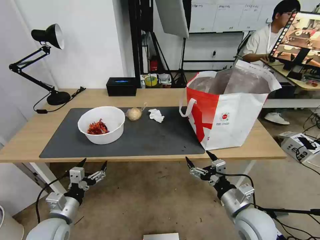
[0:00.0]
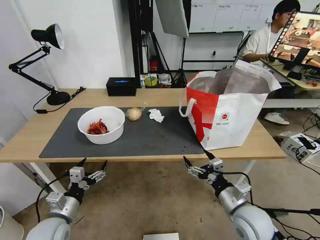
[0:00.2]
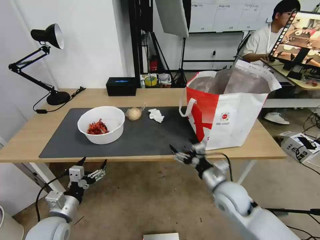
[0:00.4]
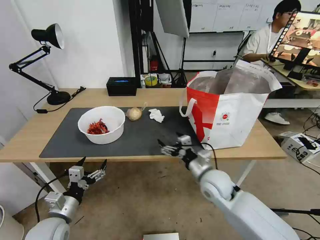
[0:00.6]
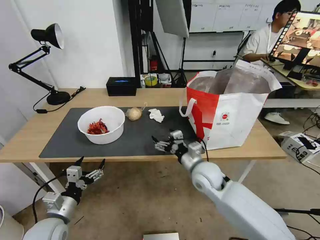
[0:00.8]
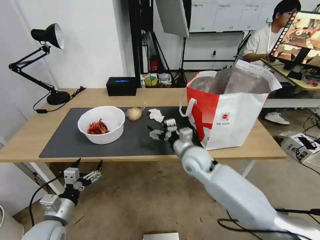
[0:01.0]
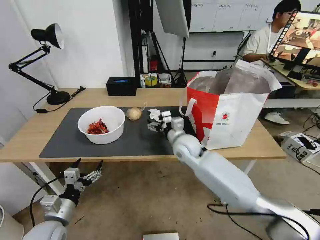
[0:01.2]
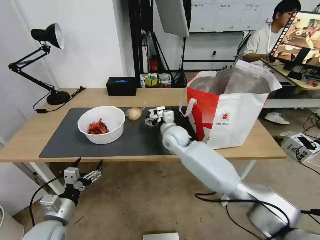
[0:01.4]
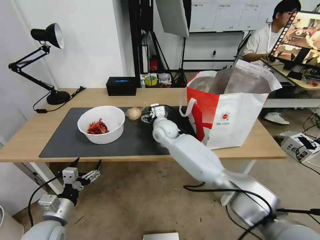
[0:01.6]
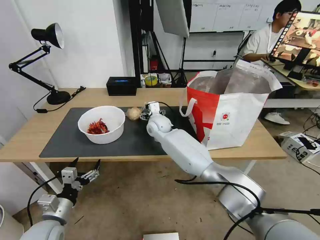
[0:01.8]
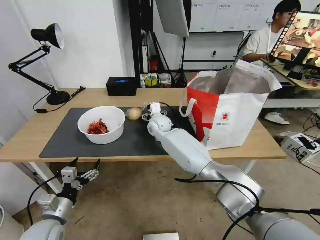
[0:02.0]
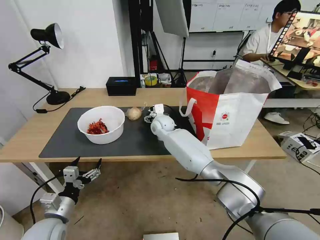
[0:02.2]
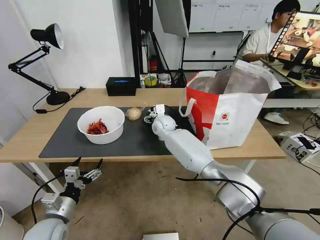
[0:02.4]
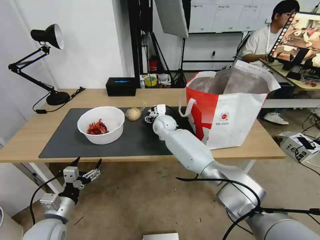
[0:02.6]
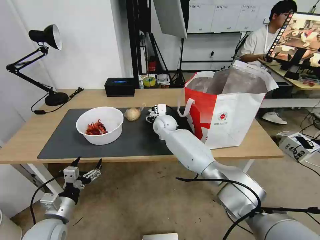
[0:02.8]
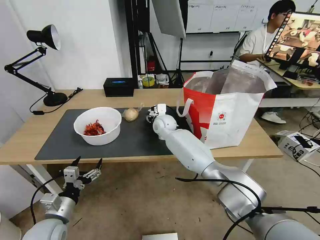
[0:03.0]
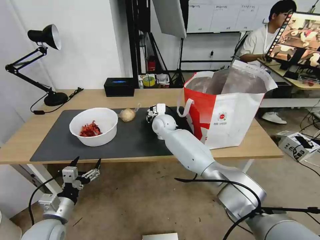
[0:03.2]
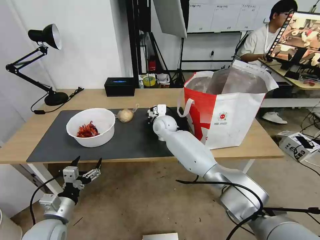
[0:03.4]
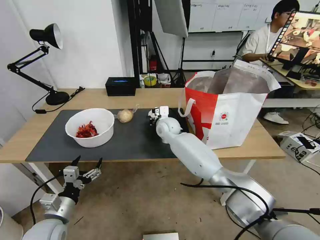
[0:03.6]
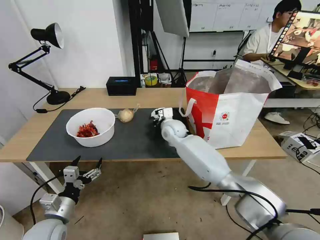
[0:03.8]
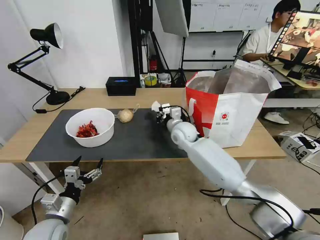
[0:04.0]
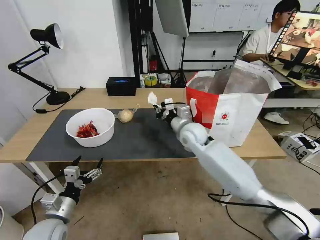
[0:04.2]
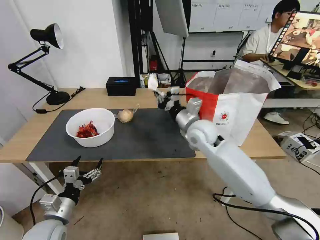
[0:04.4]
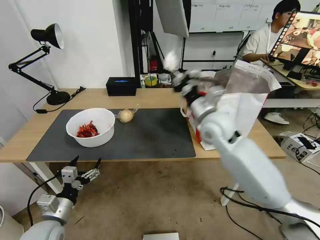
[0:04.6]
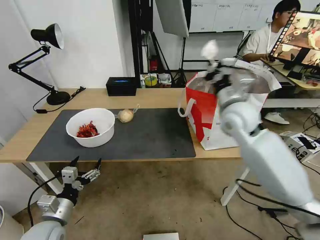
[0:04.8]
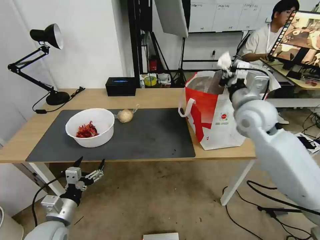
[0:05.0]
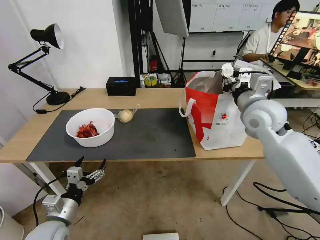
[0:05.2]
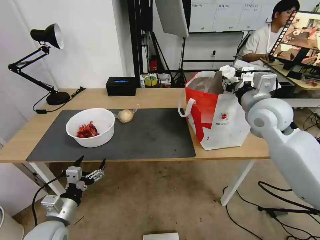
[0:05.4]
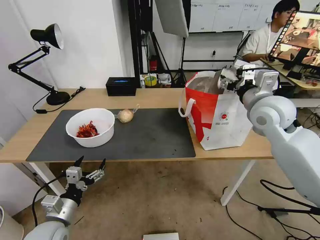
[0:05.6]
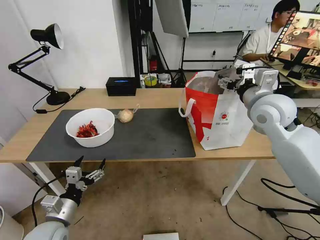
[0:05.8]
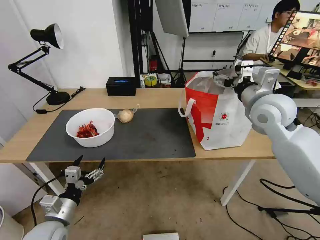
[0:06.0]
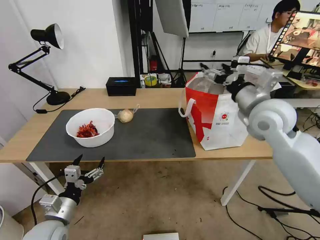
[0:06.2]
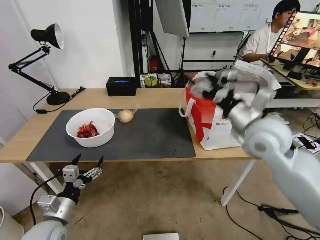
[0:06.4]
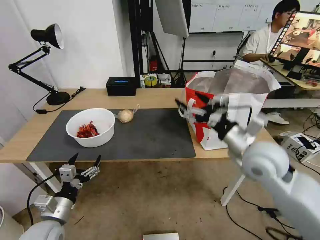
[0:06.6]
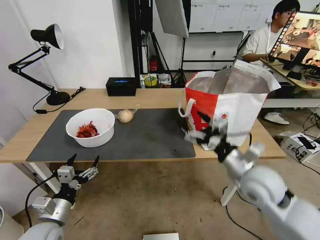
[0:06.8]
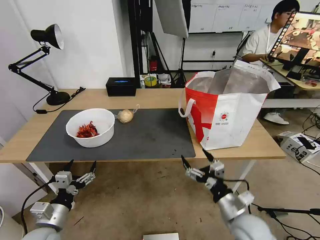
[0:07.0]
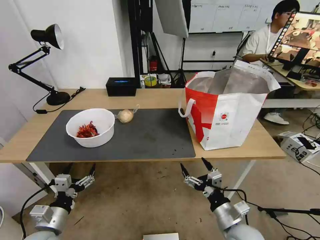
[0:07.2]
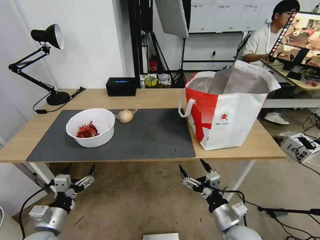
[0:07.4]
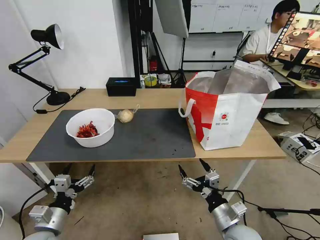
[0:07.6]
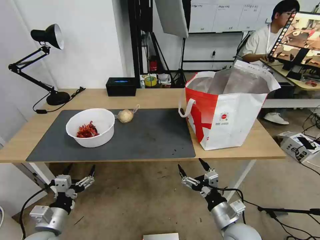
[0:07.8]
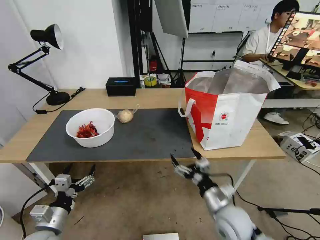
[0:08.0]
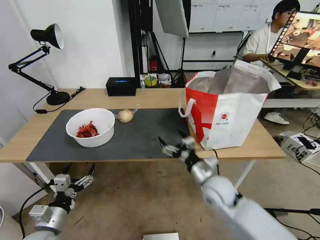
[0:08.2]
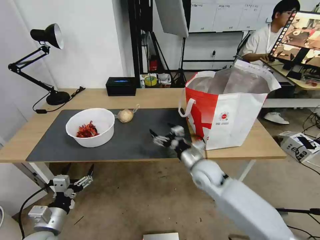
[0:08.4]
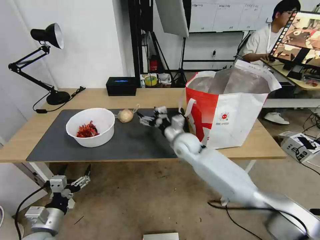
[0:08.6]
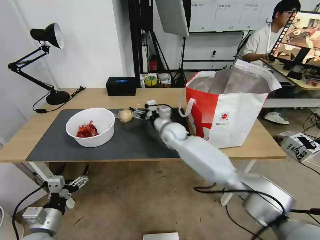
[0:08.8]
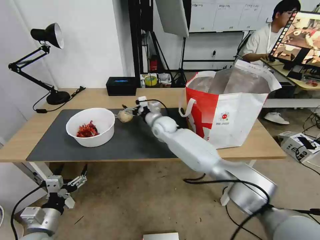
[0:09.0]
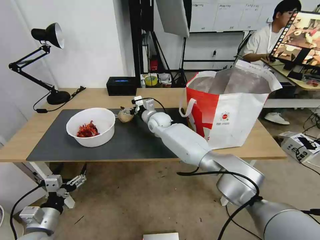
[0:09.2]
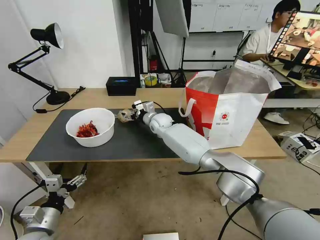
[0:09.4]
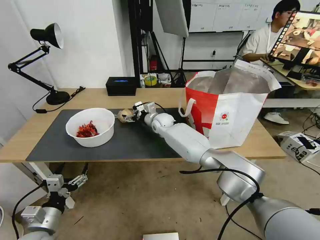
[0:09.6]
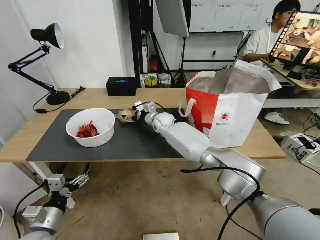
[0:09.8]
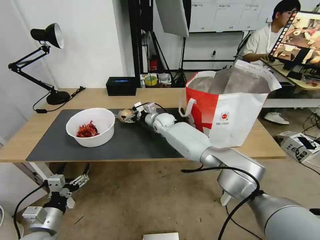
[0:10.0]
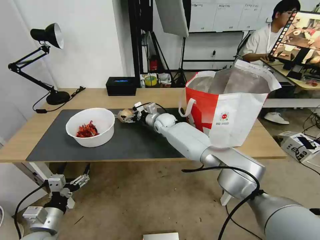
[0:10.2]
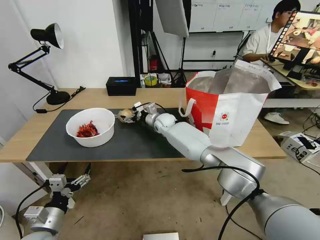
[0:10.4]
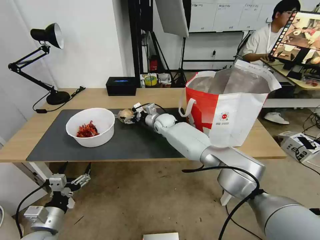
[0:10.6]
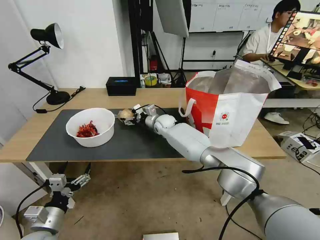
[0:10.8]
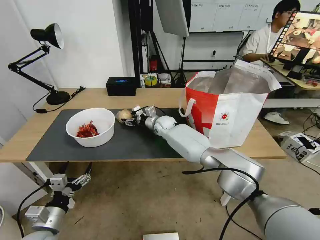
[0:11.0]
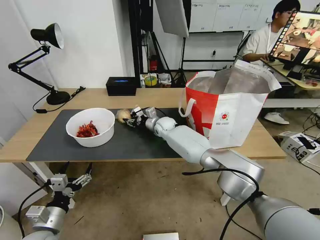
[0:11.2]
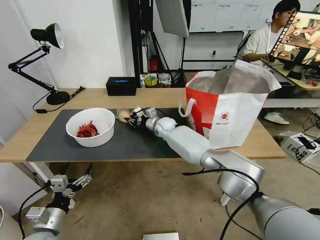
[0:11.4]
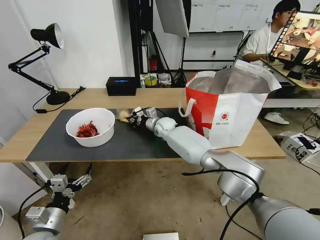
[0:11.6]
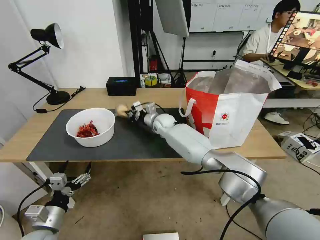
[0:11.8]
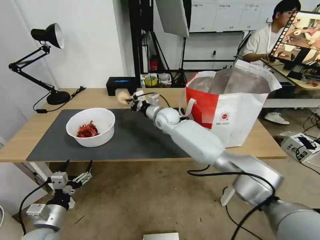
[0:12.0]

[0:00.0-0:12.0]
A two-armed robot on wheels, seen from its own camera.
Task of the whole recording: Pick up the trash from the table and place it into the takeout bag.
0:00.0 to 0:01.6: The right gripper moves forward and to the left, roughly 40 cm.
0:01.6 to 0:03.0: The right gripper shifts approximately 5 cm forward, and closes its fingers.
0:03.0 to 0:04.4: The right gripper travels backward, to the right and upward by approximately 20 cm, and closes up.
0:04.4 to 0:06.0: The right gripper goes some 20 cm to the right and upward, and opens its fingers.
0:06.0 to 0:07.6: The right gripper moves downward and backward, some 35 cm.
0:07.6 to 0:09.0: The right gripper shifts some 40 cm forward and to the left.
0:09.0 to 0:10.4: The right gripper changes place by roughly 5 cm.
0:10.4 to 0:12.0: The right gripper travels upward by approximately 5 cm, and closes up.

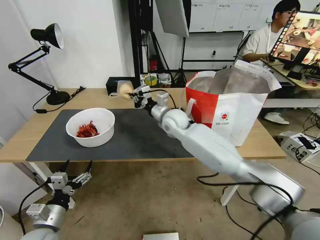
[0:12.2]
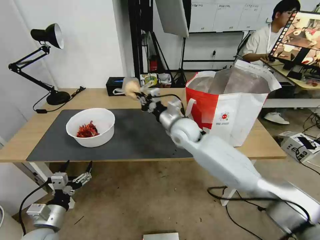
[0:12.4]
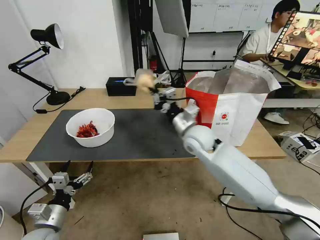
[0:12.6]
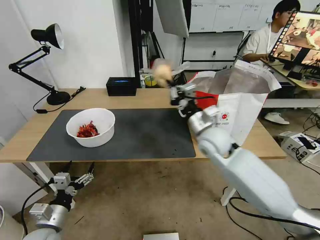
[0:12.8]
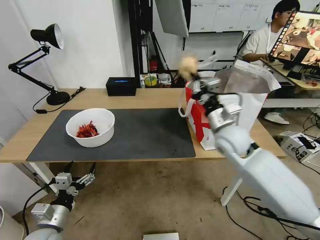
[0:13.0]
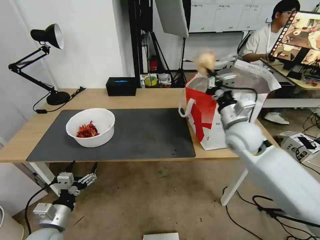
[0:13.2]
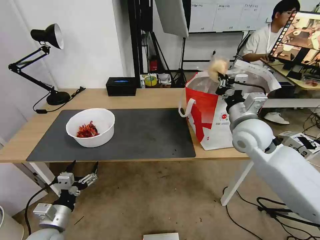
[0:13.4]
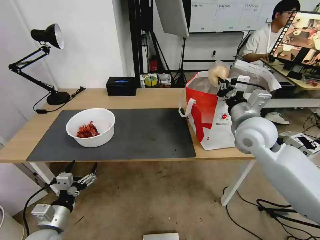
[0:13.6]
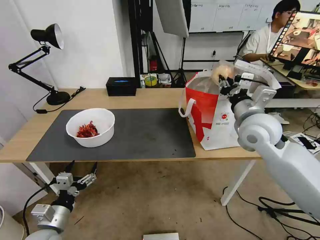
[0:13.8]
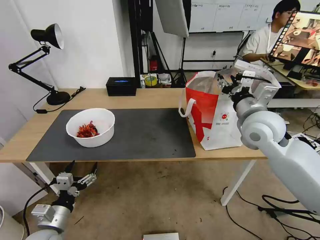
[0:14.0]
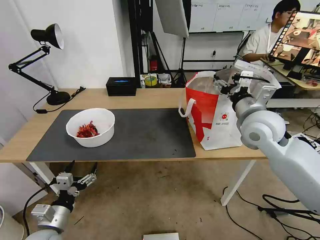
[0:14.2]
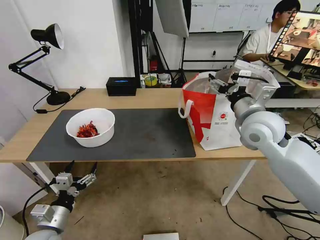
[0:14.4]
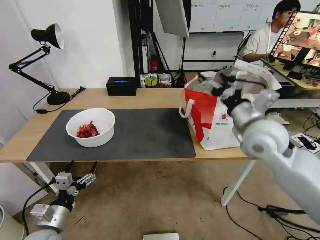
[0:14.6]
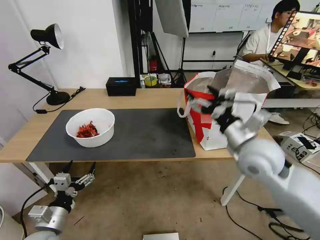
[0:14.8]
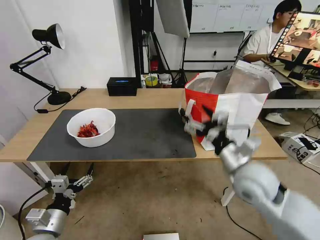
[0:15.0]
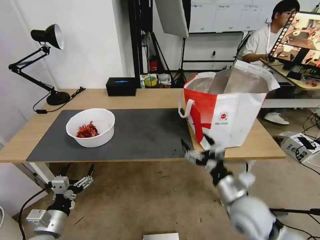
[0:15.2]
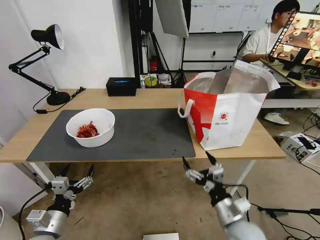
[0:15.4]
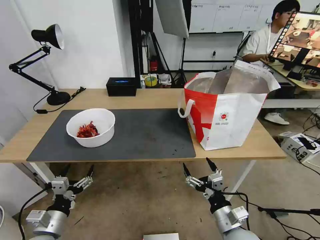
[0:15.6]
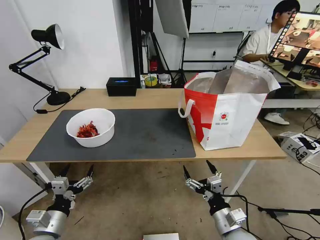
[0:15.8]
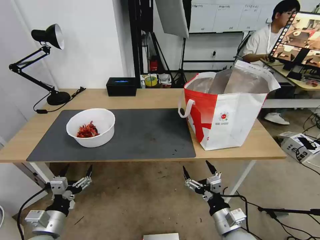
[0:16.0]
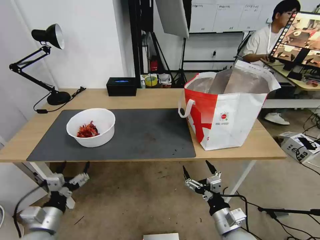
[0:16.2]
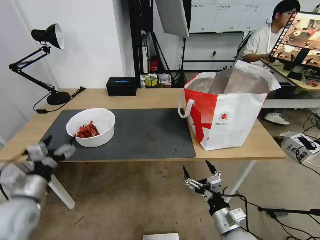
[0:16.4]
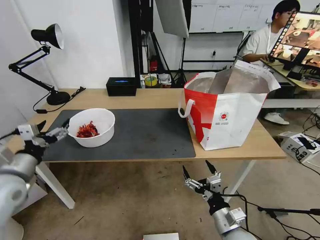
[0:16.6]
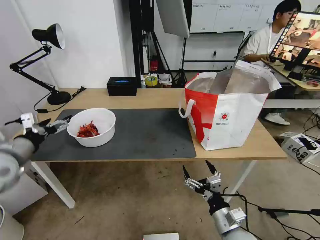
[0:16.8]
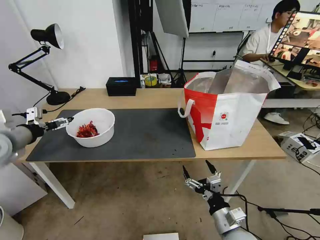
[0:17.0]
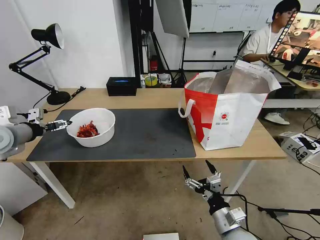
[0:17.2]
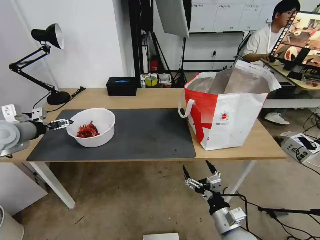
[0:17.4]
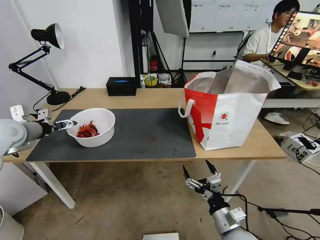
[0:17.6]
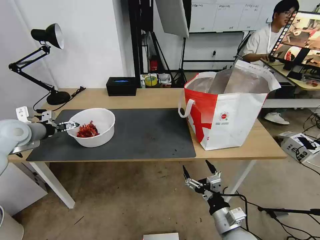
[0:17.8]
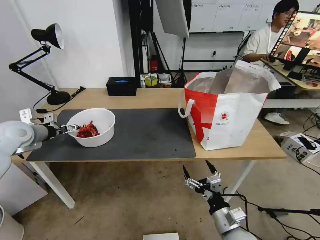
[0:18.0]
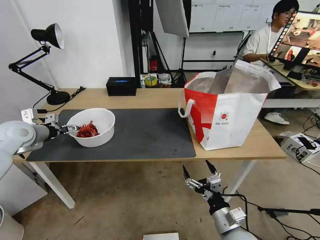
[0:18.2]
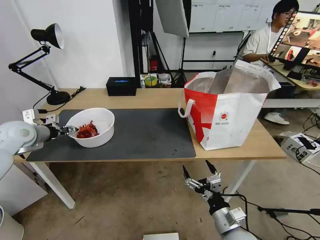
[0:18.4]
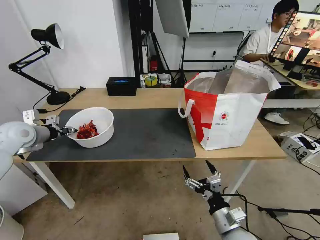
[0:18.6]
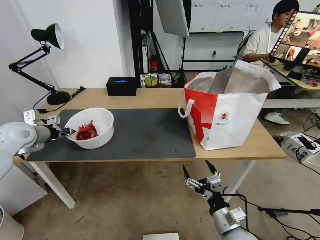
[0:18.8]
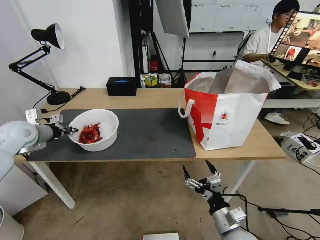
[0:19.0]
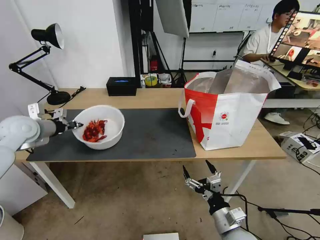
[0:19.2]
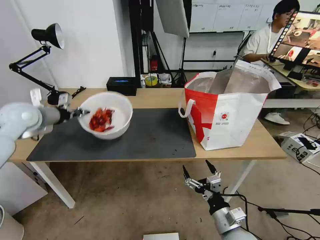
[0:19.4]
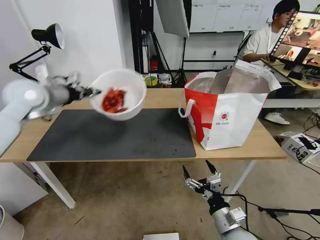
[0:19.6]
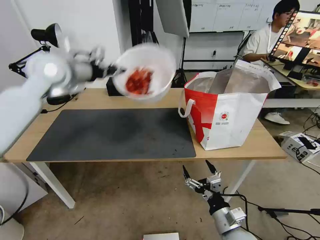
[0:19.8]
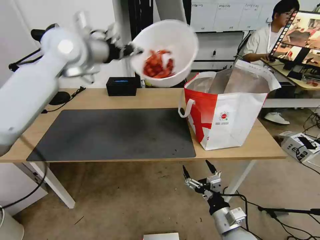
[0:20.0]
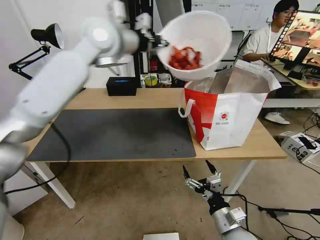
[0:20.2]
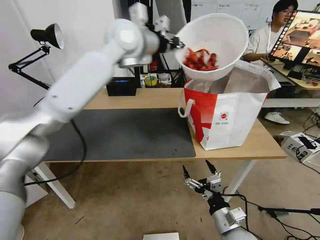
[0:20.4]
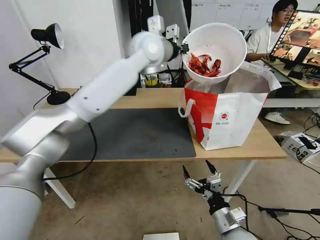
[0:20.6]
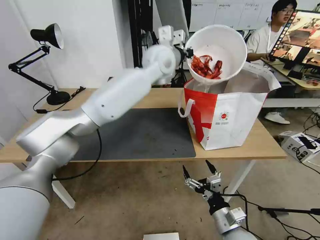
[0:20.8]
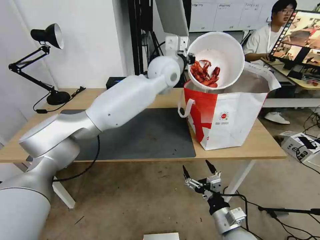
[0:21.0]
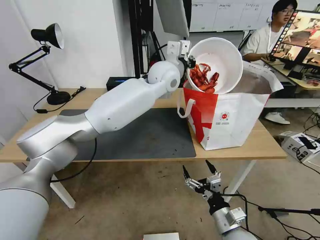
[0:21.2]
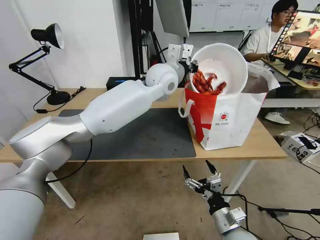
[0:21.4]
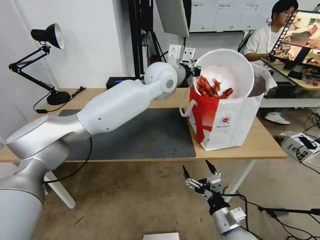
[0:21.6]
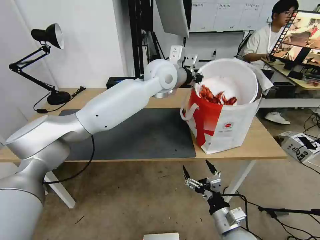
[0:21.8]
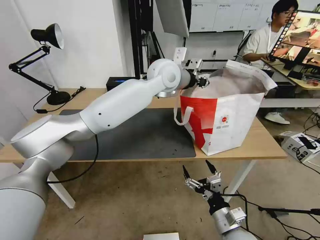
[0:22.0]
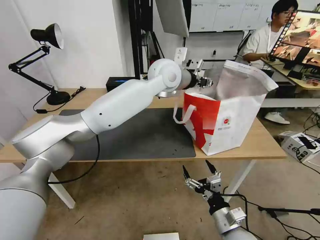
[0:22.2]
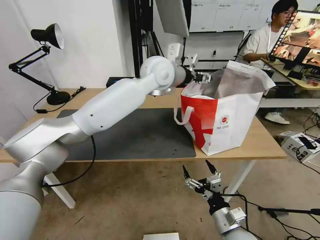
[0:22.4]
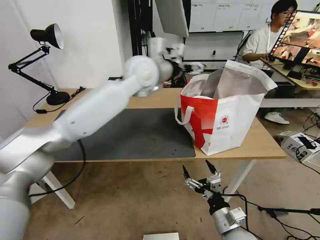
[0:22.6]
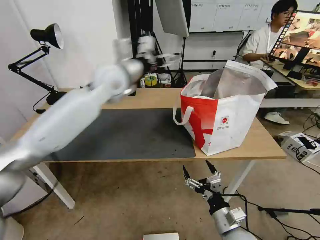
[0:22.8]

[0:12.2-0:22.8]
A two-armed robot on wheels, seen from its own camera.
Task of the whole recording: Pick up the trash from the table and place it into the takeout bag.
0:12.2 to 0:13.8: The right gripper moves to the right, backward and upward, about 25 cm.
0:13.8 to 0:15.2: The right gripper travels backward and downward by roughly 25 cm, and opens its fingers.
0:15.2 to 0:16.8: The left gripper shifts about 25 cm upward, forward and to the left. Meanwhile the right gripper is displaced downward and backward by approximately 10 cm.
0:16.8 to 0:18.2: The left gripper goes roughly 15 cm forward.
0:18.2 to 0:19.8: The left gripper travels upward and to the right by approximately 25 cm, and closes its fingers.
0:19.8 to 0:21.2: The left gripper travels to the right by about 30 cm.
0:21.2 to 0:22.8: The left gripper goes approximately 15 cm to the left, and opens up.
